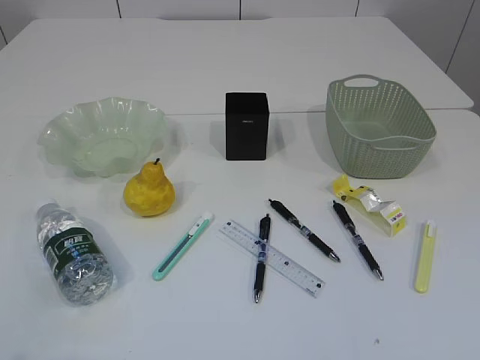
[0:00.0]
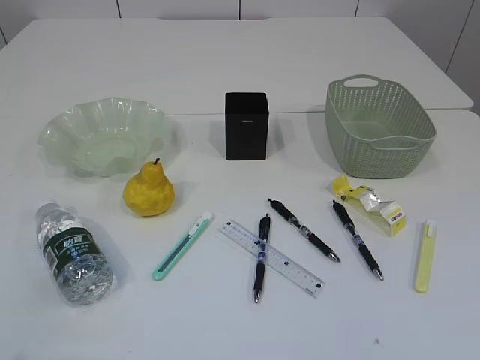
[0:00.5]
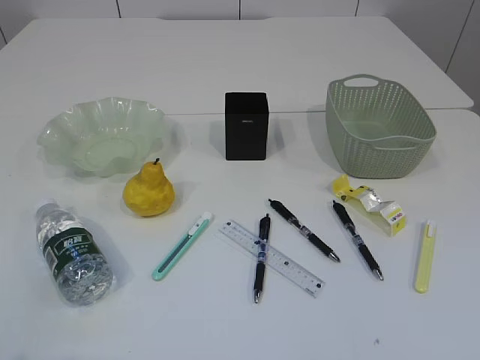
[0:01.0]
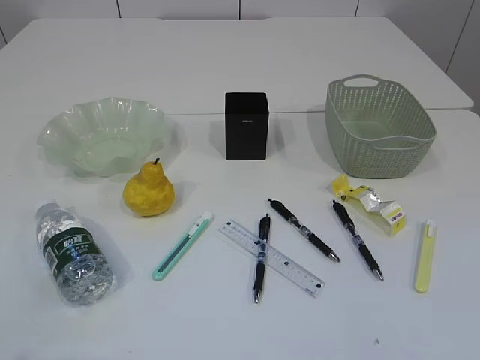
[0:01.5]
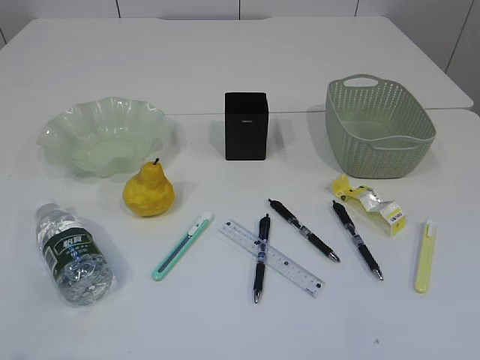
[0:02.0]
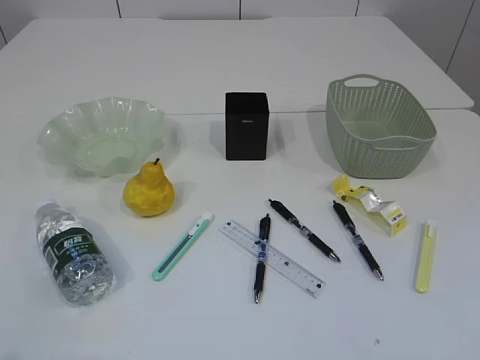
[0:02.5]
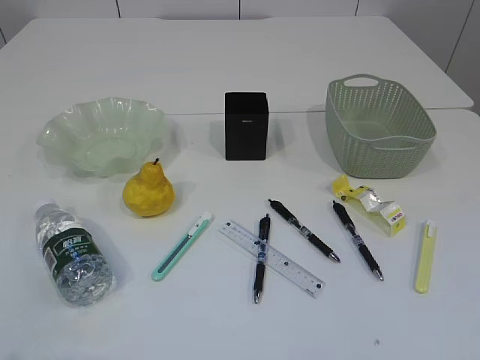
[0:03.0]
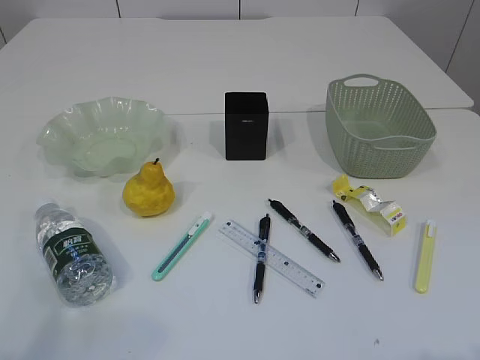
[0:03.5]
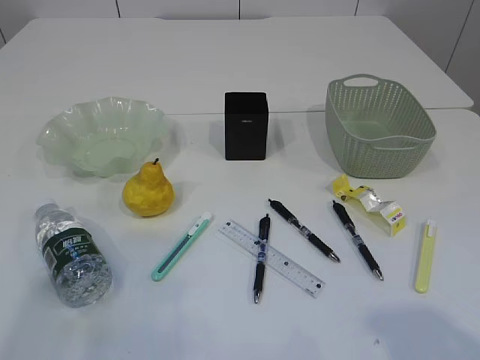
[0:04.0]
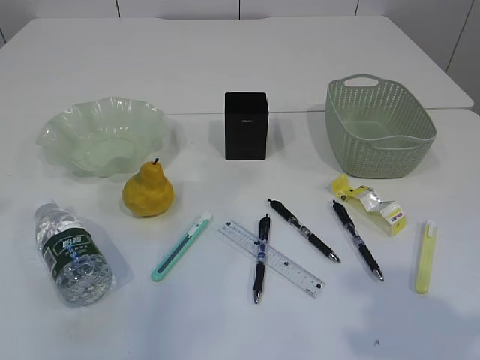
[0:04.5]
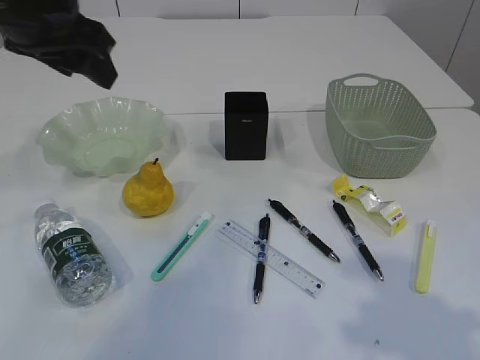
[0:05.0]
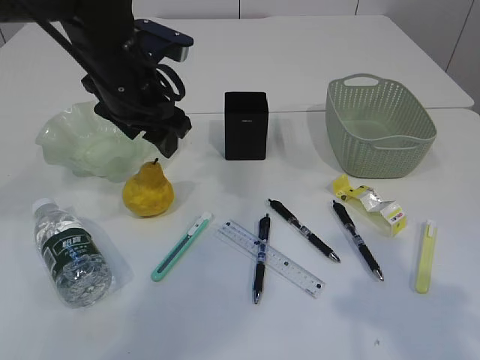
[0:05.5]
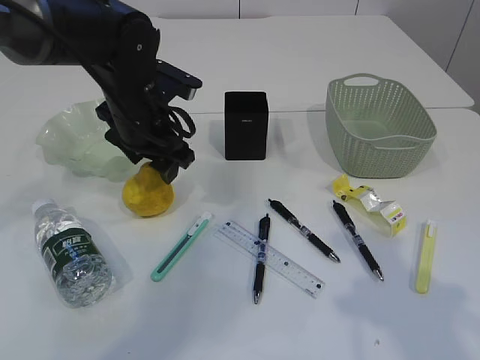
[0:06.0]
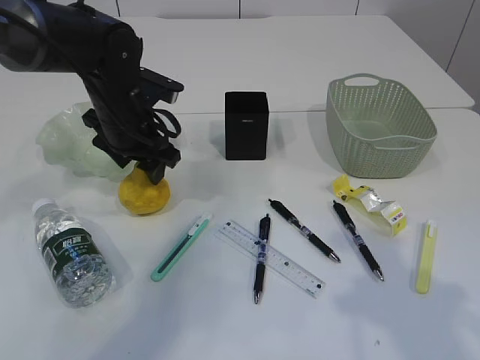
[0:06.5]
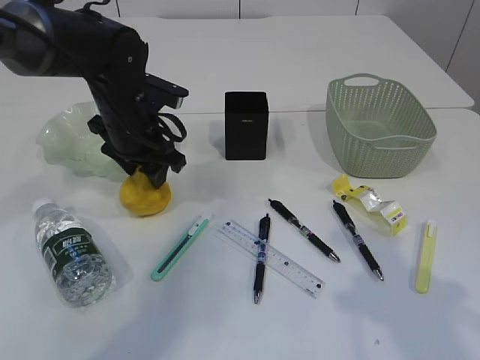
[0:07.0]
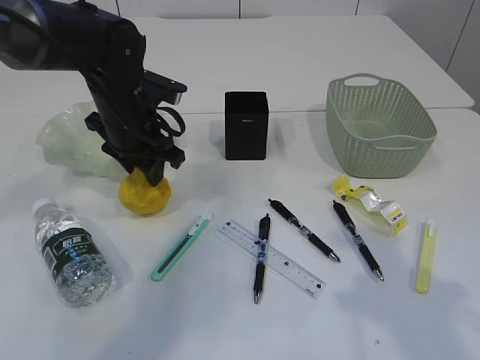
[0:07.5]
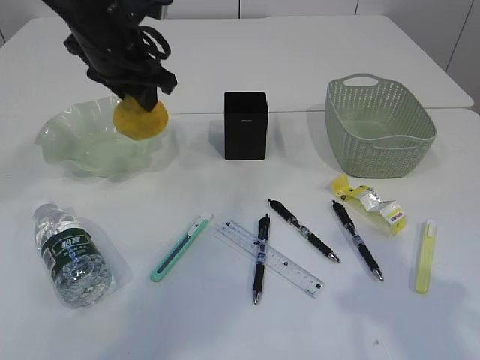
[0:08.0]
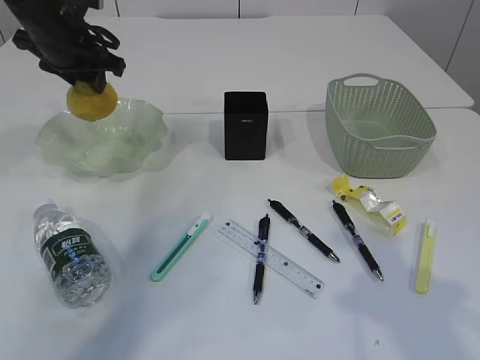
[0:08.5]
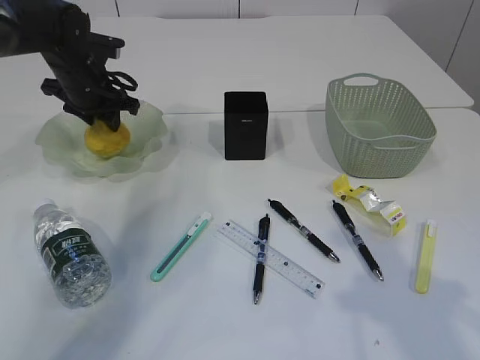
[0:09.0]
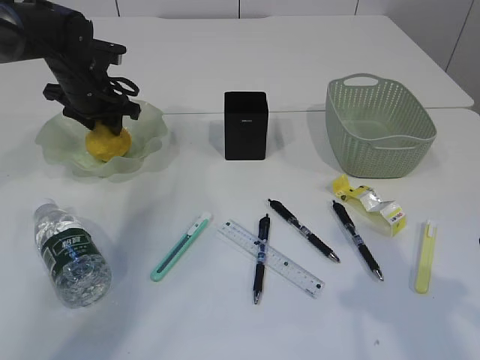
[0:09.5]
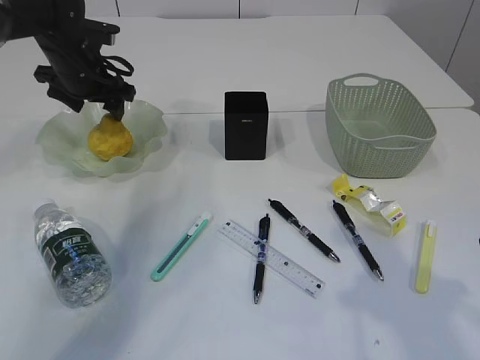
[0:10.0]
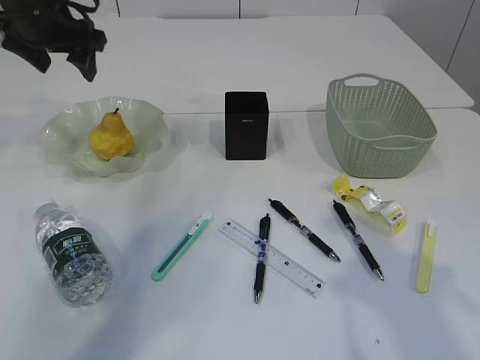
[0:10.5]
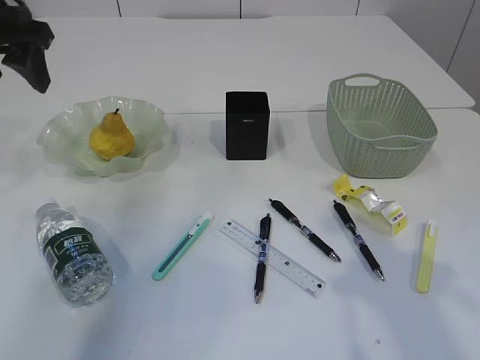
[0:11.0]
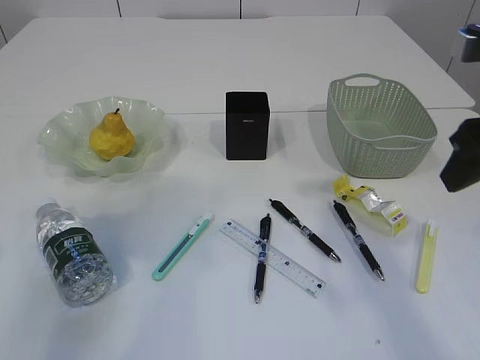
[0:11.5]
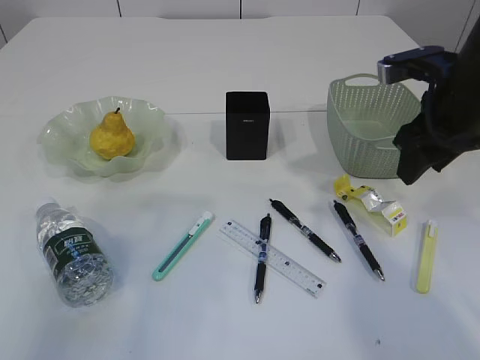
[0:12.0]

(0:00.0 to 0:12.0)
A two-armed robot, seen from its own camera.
Step, 0:08.5 - 0:10.0: Place the pear in the plate.
0:02.0 - 0:04.0: The left gripper moves forward and upward, some 15 cm.
0:04.0 - 0:06.0: The right gripper travels forward by approximately 10 cm. The left gripper moves forward, to the right and downward, about 35 cm.
0:06.0 - 0:08.0: The left gripper moves upward, some 10 cm, and closes up.
0:08.0 - 0:10.0: The left gripper is displaced forward, to the left and downward by roughly 15 cm, and opens.
0:10.0 - 0:12.0: The right gripper heads forward, covering approximately 20 cm. Meanwhile the left gripper goes approximately 30 cm backward.

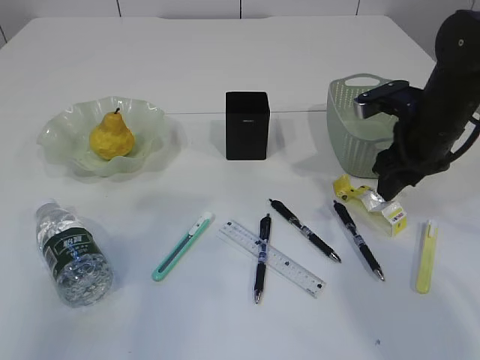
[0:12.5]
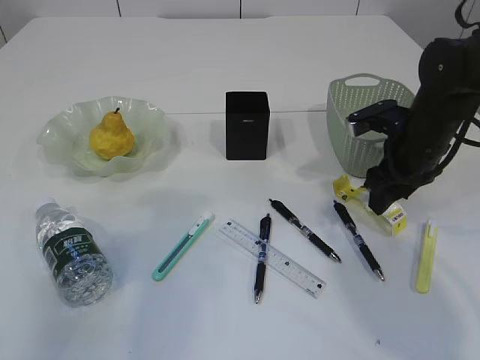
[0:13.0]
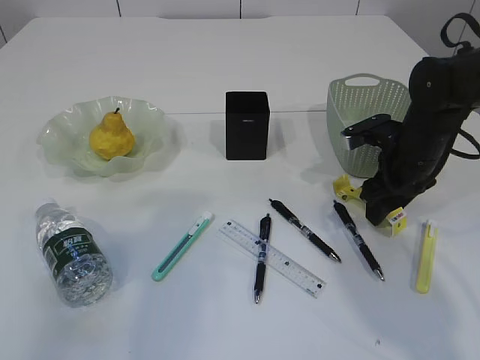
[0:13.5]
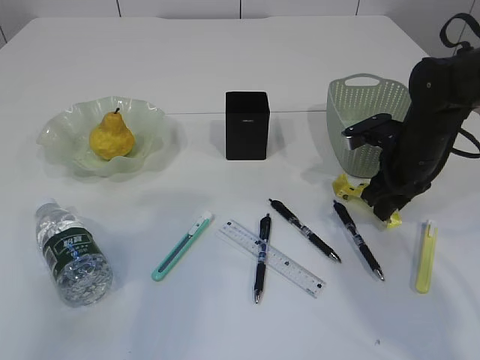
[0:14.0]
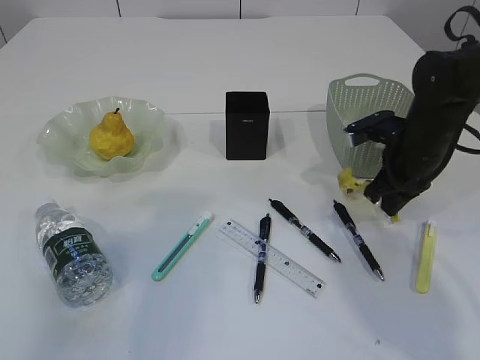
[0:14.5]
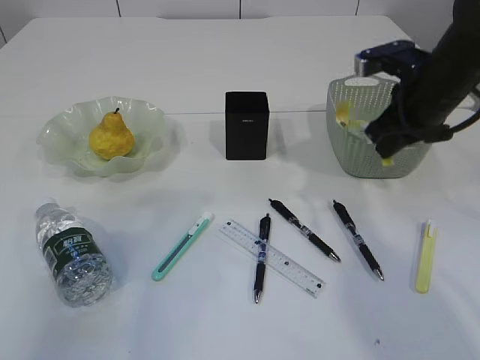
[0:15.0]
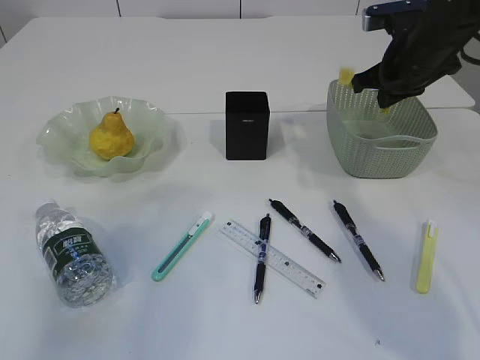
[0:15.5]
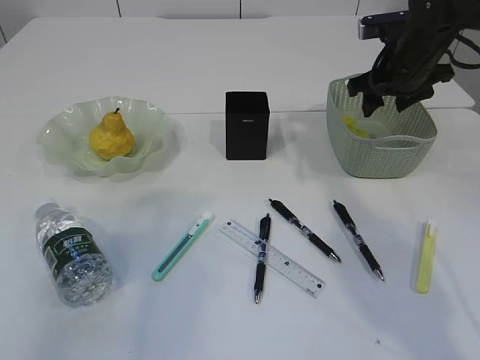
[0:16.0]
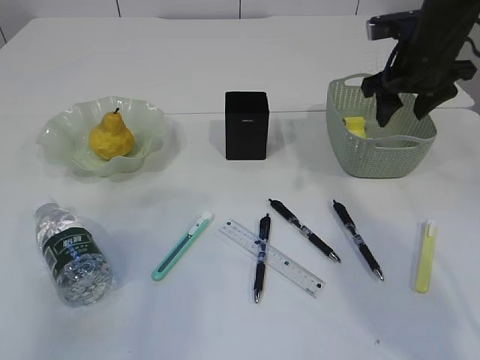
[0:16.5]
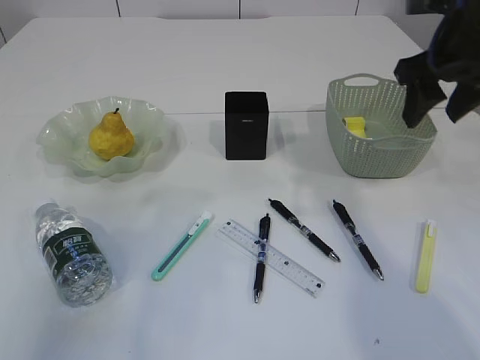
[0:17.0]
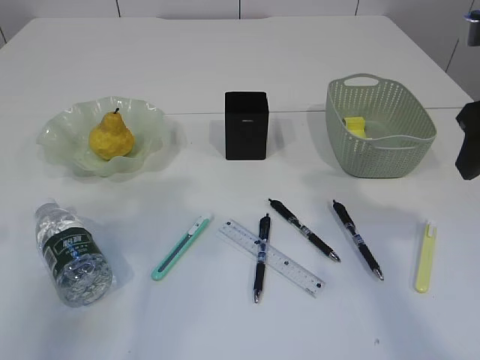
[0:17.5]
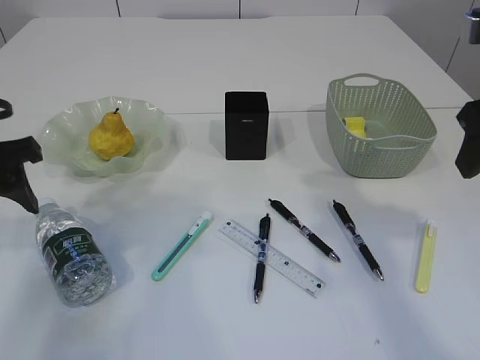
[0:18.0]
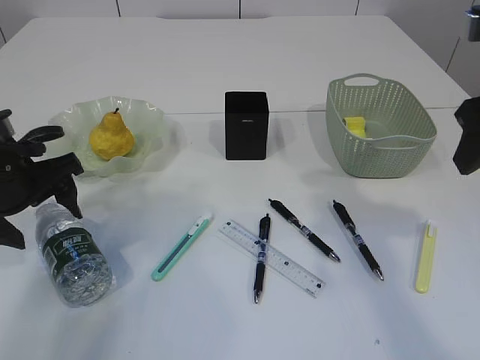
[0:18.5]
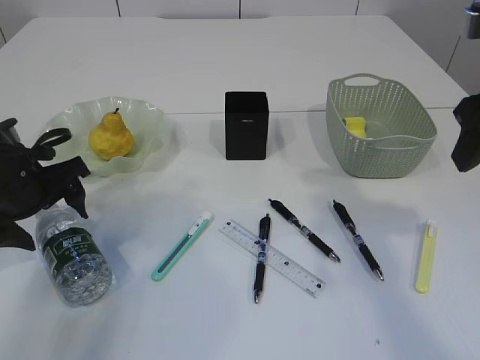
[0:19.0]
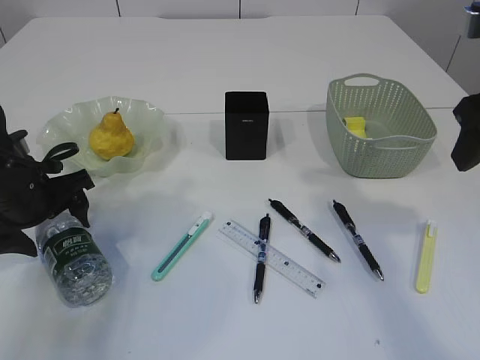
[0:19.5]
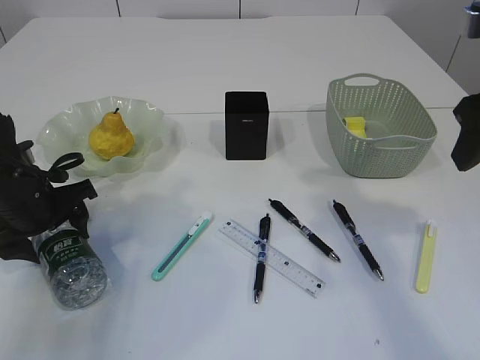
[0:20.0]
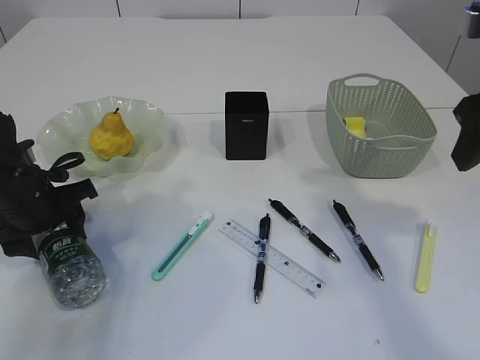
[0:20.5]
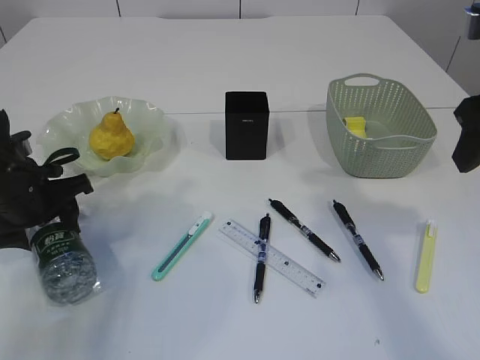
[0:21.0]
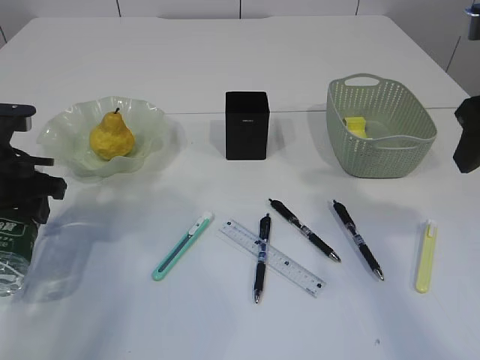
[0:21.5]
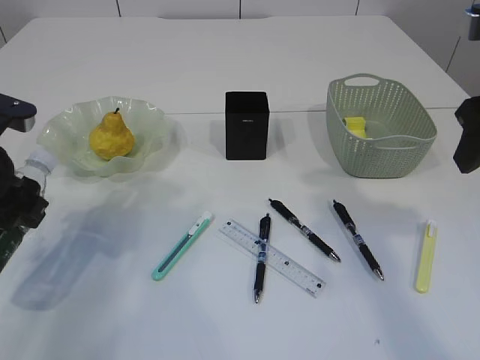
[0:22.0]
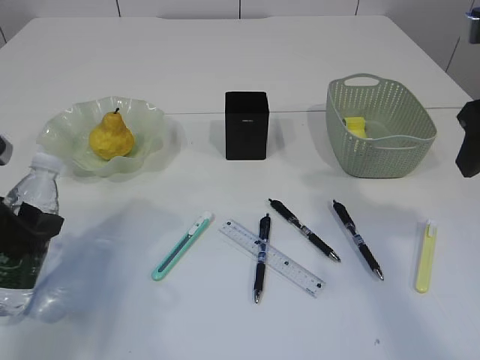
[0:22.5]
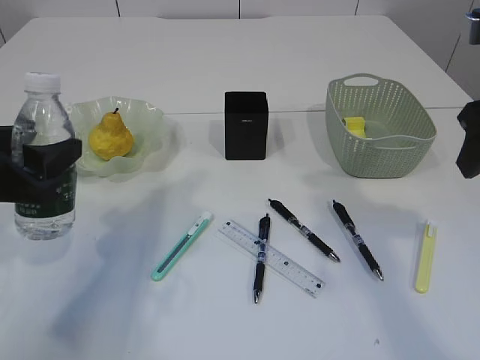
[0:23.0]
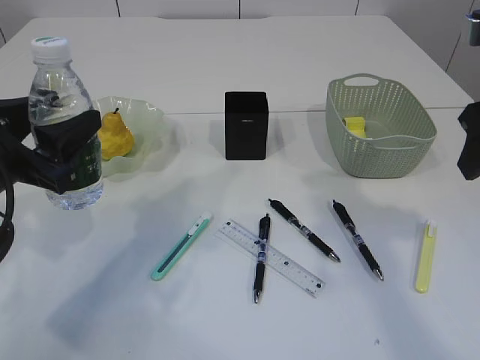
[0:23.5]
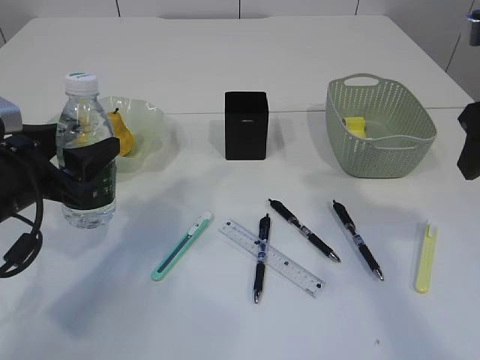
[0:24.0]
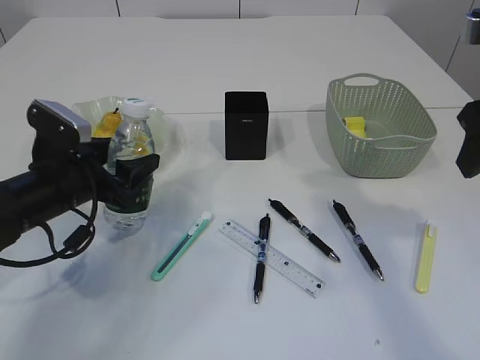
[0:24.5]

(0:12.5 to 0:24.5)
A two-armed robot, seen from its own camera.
Step, 0:12.5 - 0:15.0: Pick up the waste paper.
Step, 0:15.5 - 0:16.5: Place the waste paper in the basket.
Step, 0:17.0 - 0:22.0: Pick up the bottle with the left arm.
0:12.5 - 0:14.5: The right gripper closes its fingers.
0:14.5 - 0:16.5: The right gripper goes about 10 cm upward, and opens its fingers.
0:16.5 - 0:18.5: The right gripper heads backward, covering some 15 cm, while the left gripper moves downward and forward, some 20 cm.
0:18.5 - 0:20.5: The left gripper heads downward, covering about 5 cm.
0:20.5 - 0:22.5: The left gripper is displaced backward by roughly 10 cm.
0:22.5 - 0:24.5: The left gripper shifts some 10 cm forward, to the right and downward.

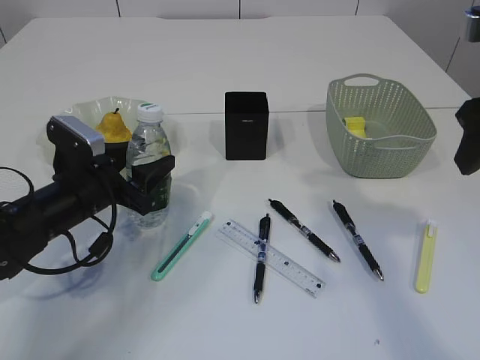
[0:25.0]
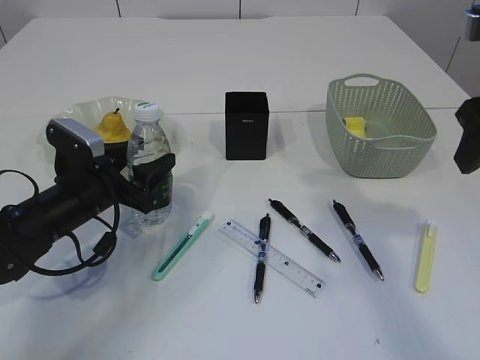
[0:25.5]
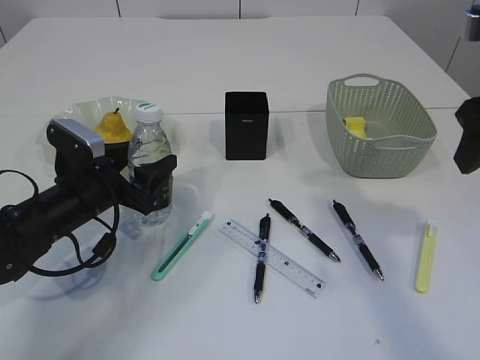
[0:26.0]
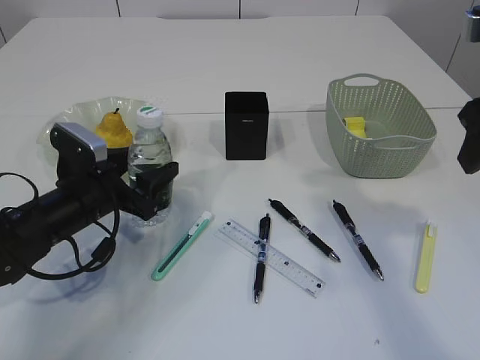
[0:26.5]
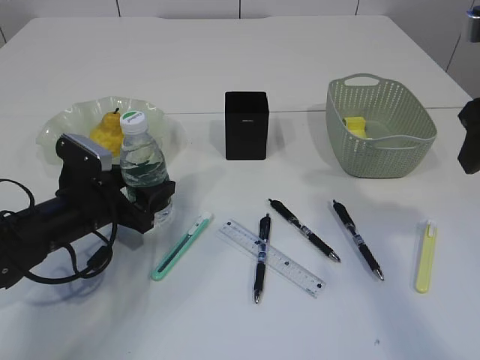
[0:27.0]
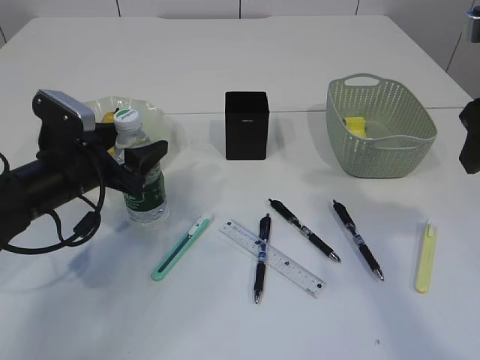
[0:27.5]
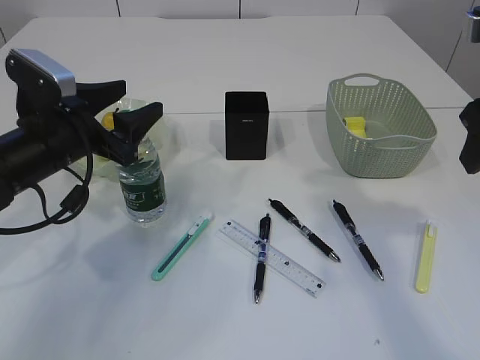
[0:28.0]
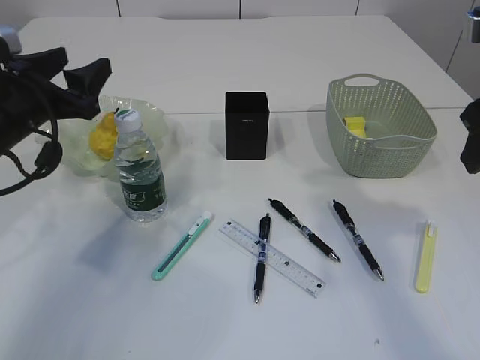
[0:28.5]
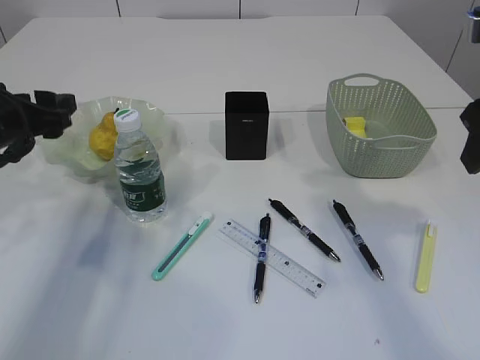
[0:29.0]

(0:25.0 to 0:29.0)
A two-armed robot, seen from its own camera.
Step, 0:25.0 - 0:28.5: Place the bottle.
0:25.0 - 0:27.0: The grippers make only small movements.
0:27.0 - 0:29.0: The left gripper moves upward and to the left, about 15 cm.
